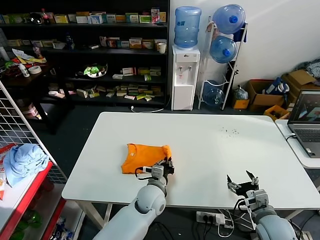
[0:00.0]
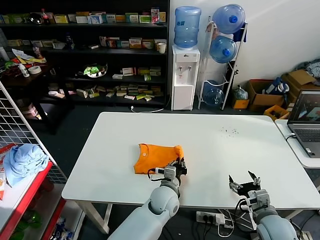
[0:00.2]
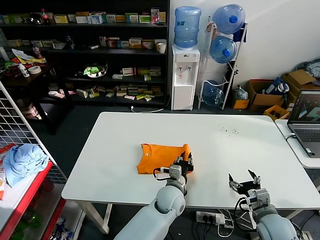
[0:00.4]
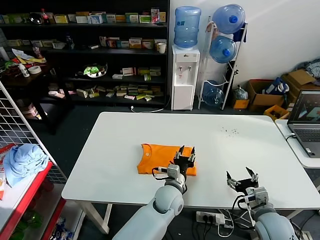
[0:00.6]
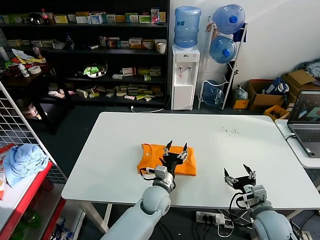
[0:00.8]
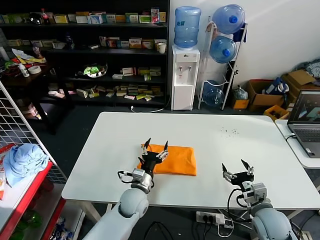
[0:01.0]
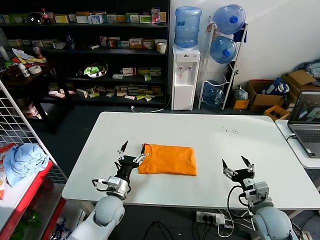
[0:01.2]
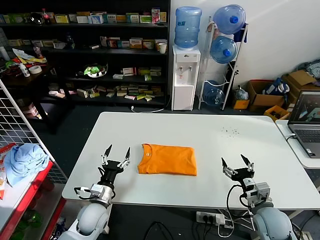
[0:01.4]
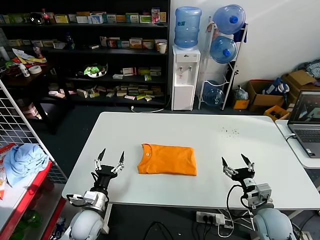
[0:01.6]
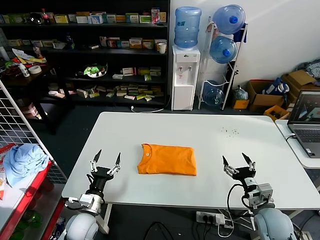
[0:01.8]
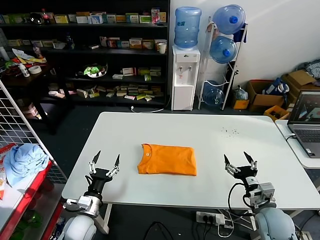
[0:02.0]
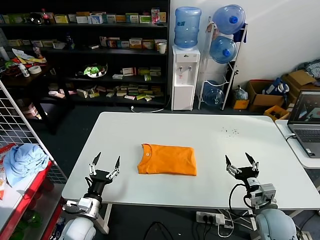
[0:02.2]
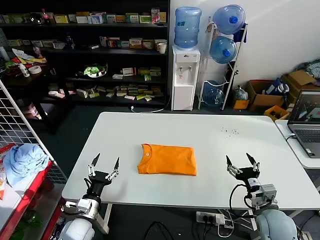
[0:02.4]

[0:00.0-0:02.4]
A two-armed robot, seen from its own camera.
Task of the whole recording: fold and organize the clothes.
0:00.0 to 0:01.2: The left gripper travels to the left by about 10 cm, and opens.
0:01.2 to 0:02.4: The left gripper shifts some 15 cm to the left and backward.
